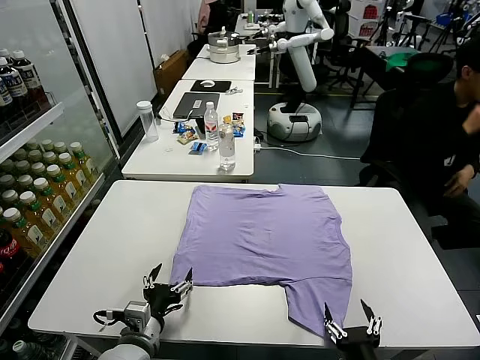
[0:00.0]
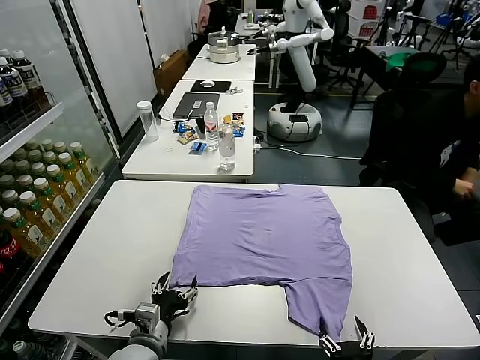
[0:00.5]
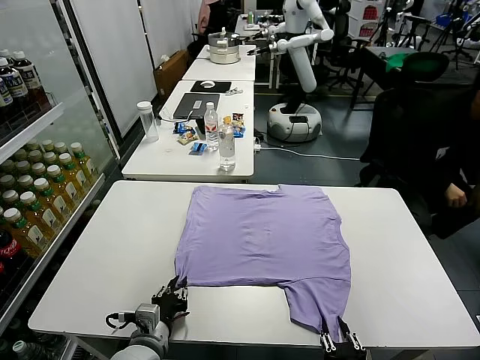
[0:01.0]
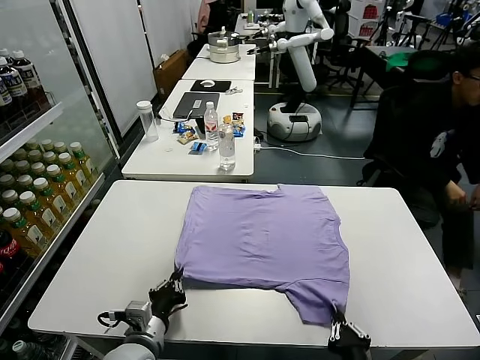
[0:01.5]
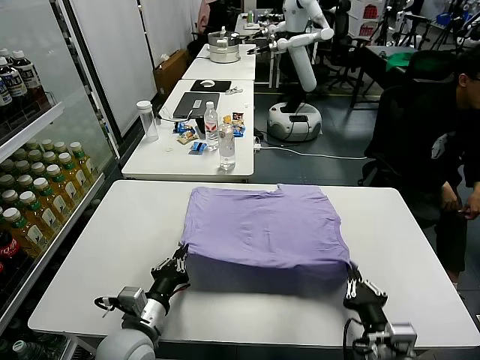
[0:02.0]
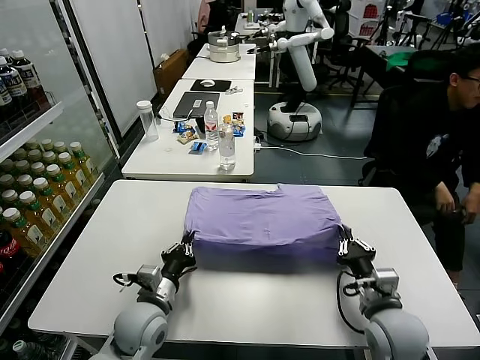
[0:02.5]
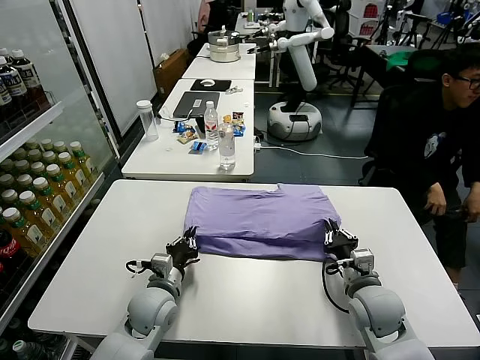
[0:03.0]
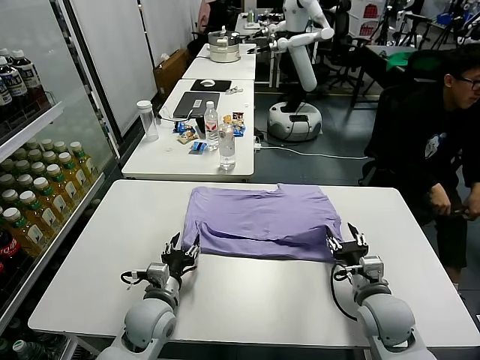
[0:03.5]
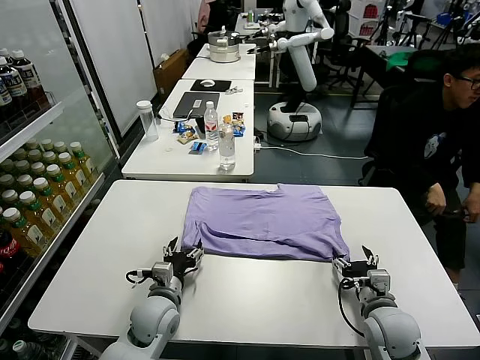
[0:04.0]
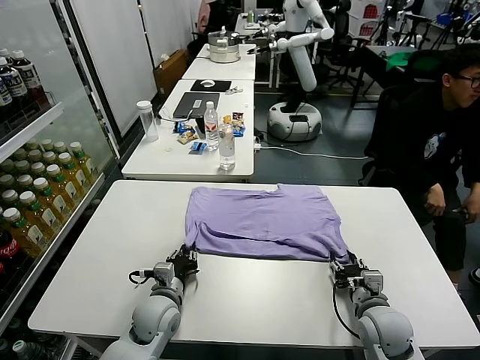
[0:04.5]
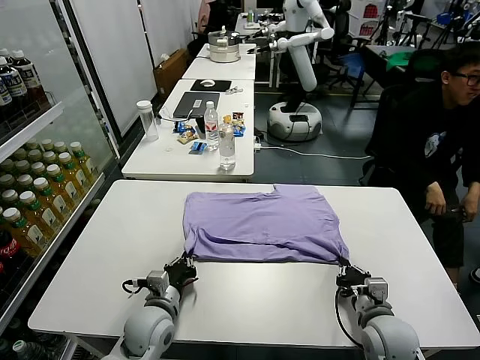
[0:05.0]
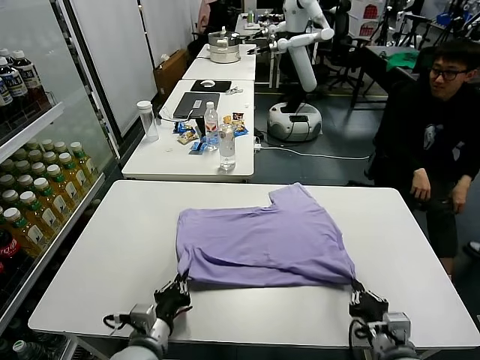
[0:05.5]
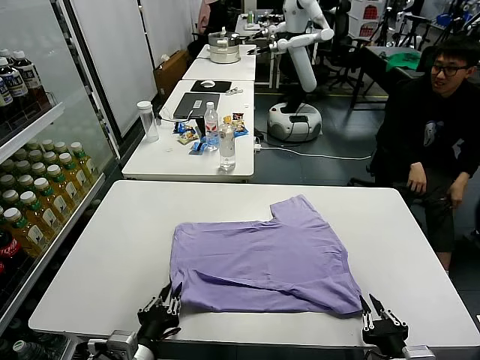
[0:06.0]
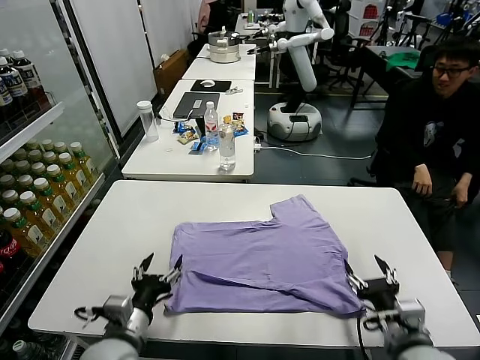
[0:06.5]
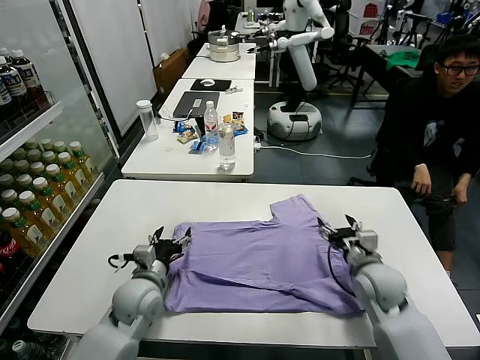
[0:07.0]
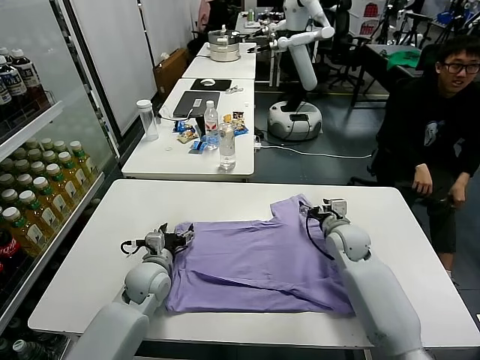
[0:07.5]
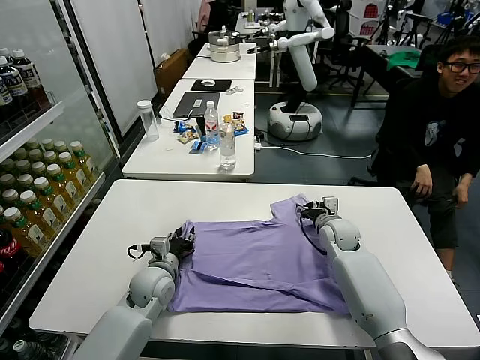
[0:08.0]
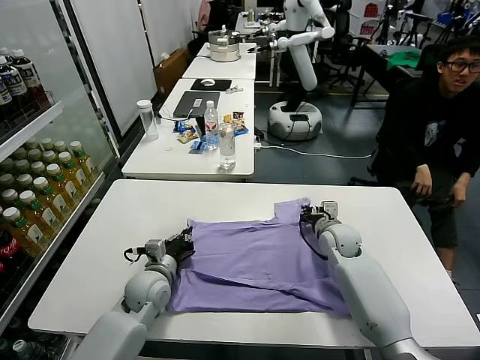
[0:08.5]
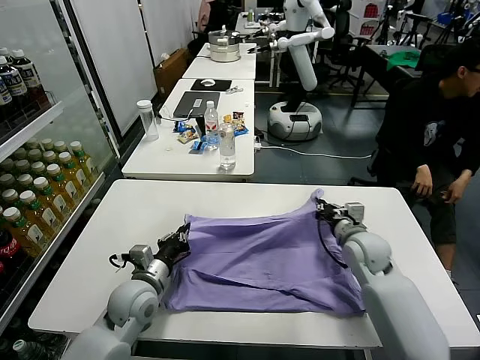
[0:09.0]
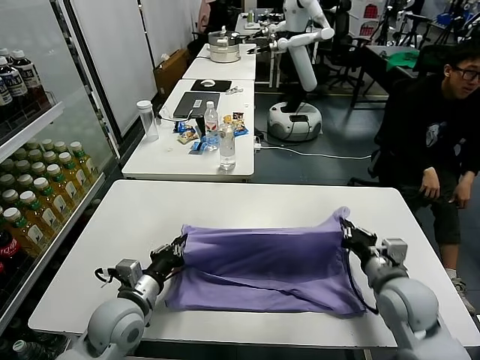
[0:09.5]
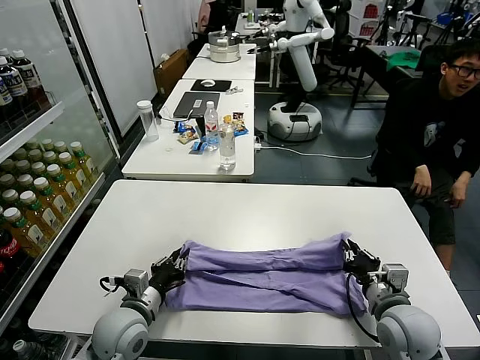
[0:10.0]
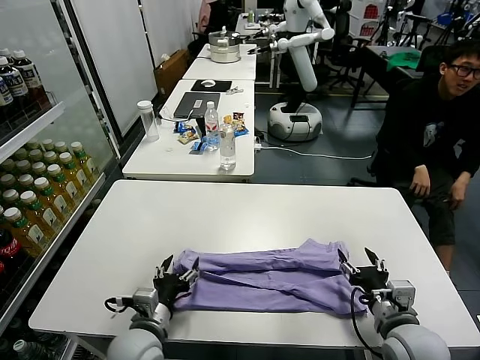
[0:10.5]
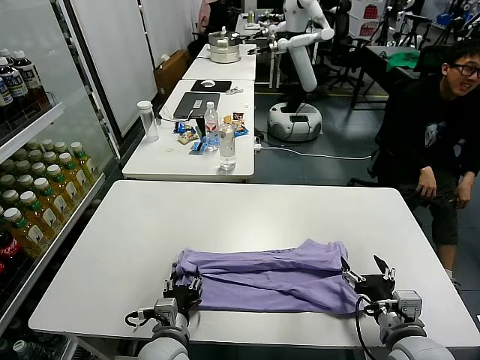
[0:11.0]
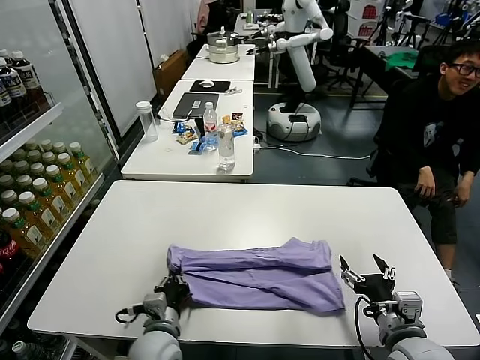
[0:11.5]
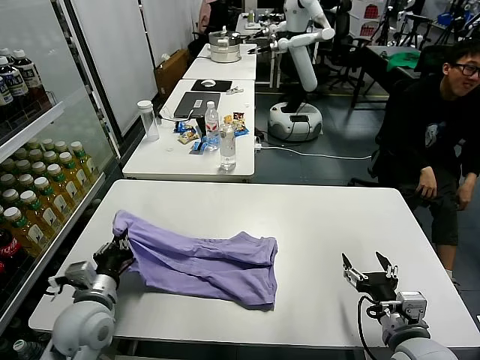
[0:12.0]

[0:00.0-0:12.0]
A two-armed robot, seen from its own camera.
Task of the whole recording: fold and organize the clothes.
Step, 0:00.0 to 0:01.0: use both grippers simultaneously to clamp the lower edge of the clothing fabric.
Step, 0:02.0 to 0:03.5: use both grippers to drag the lower edge of the fabric forward and fold it over the upper edge.
Step, 0:04.0 to 0:06.0: Drag the clothes downward with both gripper.
Step, 0:06.5 to 0:08.0: use both grippers simultaneously to clamp the upper edge of the clothing fabric.
Step, 0:08.5 to 0:10.0: use both grippers to drag the upper edge of the fabric backward and fold it over the lower edge.
Step, 0:11.0 to 0:11.5: use the left gripper to clamp the left edge of the fabric.
0:02.0 to 0:04.0: The two grippers go about 10 cm forward and downward. The right gripper opens up. Meanwhile the left gripper opens.
0:04.0 to 0:06.0: Both grippers move backward and upward, some 20 cm. The right gripper closes up; the left gripper closes.
0:06.0 to 0:08.0: The right gripper goes about 40 cm forward, and opens and closes again. The left gripper is displaced forward by about 25 cm, and opens and closes again.
0:08.0 to 0:10.0: The left gripper moves backward, some 10 cm; the right gripper heads backward, covering approximately 25 cm.
0:10.0 to 0:12.0: The right gripper shifts roughly 5 cm backward, and opens its fingers. Meanwhile the left gripper shifts roughly 5 cm to the left, and opens, then closes once more.

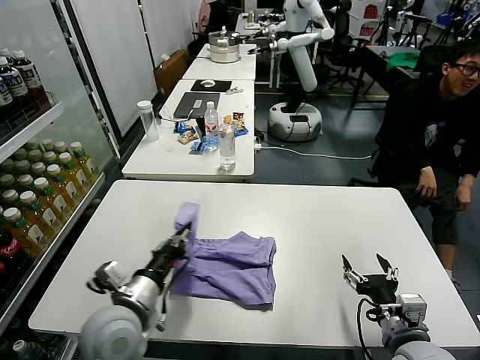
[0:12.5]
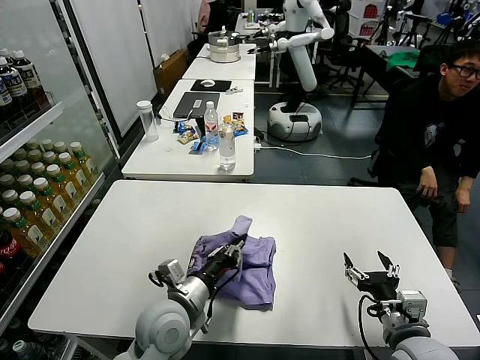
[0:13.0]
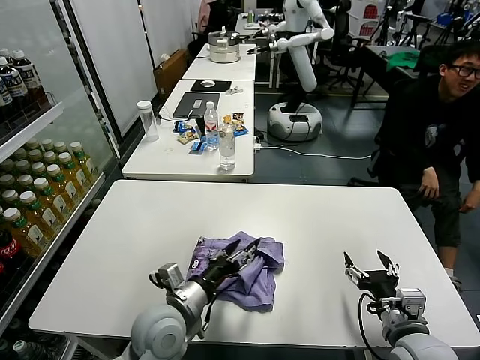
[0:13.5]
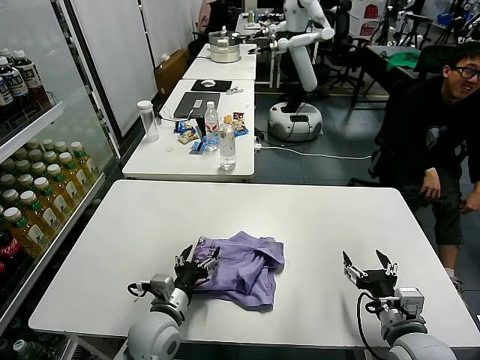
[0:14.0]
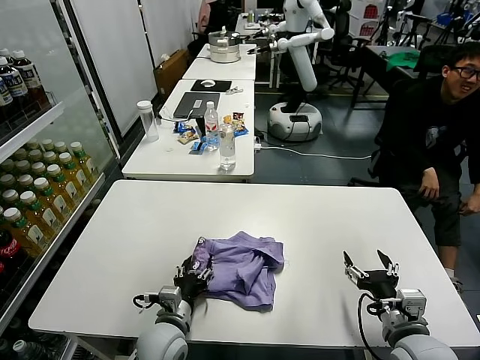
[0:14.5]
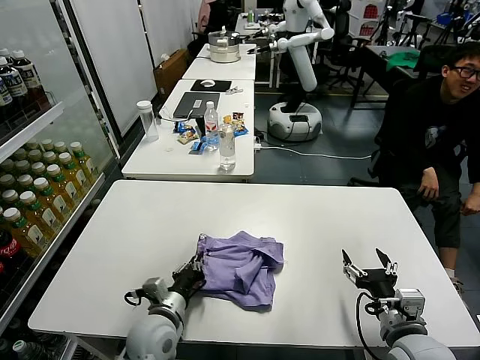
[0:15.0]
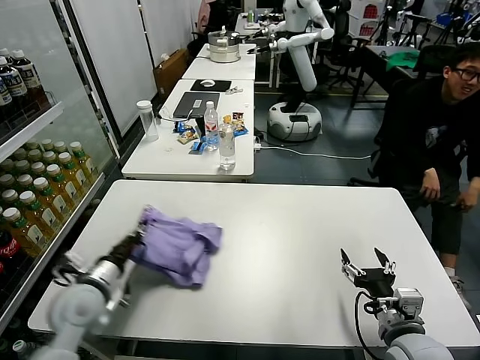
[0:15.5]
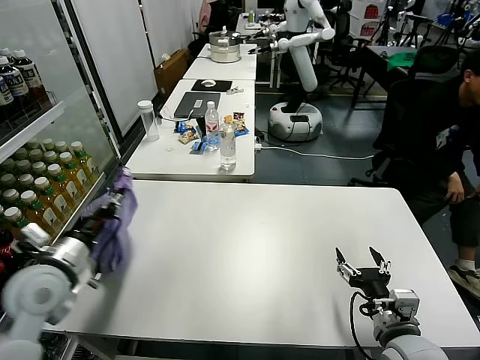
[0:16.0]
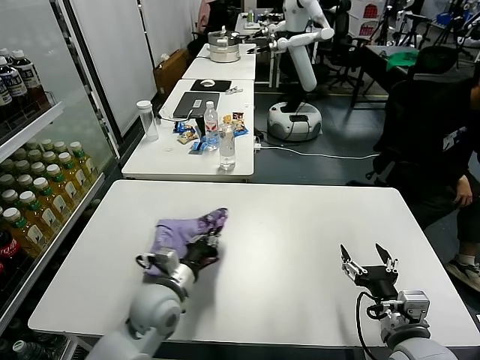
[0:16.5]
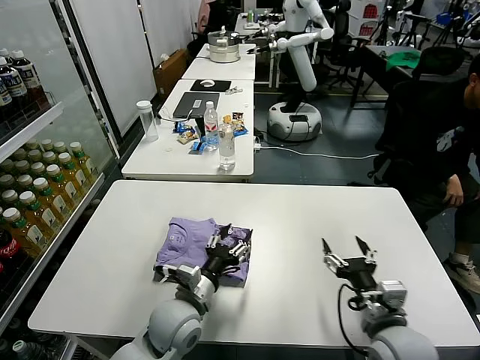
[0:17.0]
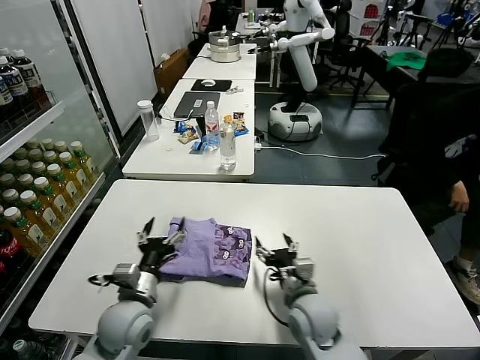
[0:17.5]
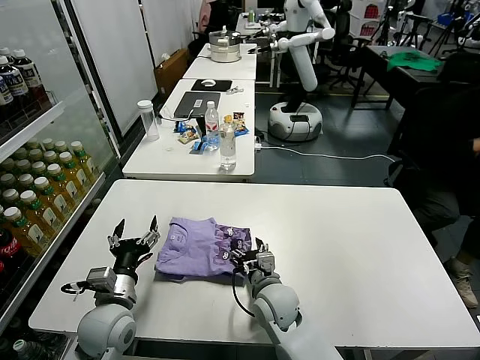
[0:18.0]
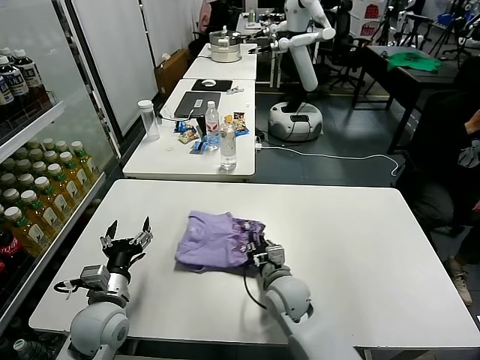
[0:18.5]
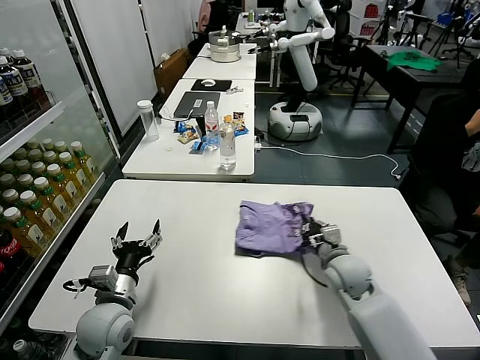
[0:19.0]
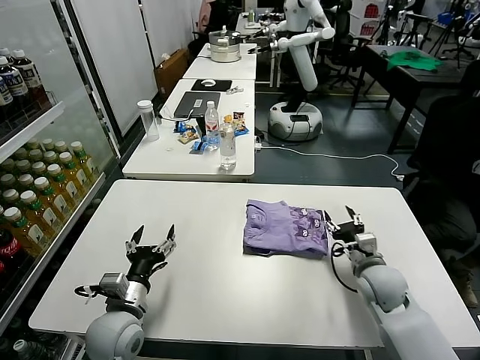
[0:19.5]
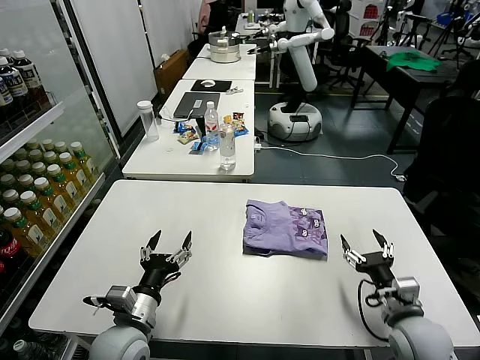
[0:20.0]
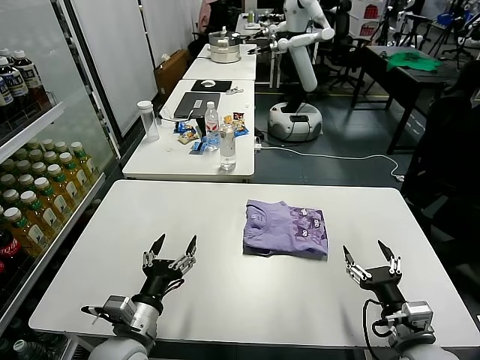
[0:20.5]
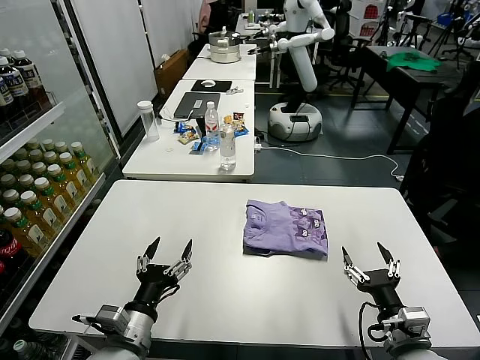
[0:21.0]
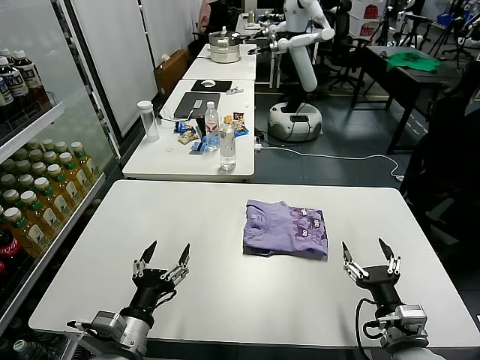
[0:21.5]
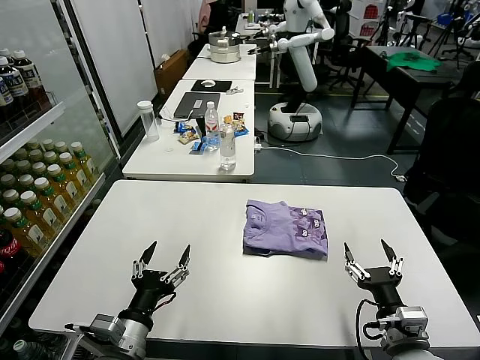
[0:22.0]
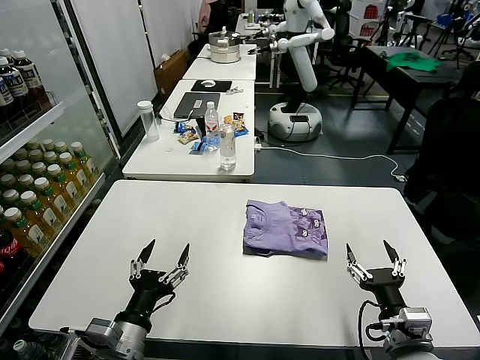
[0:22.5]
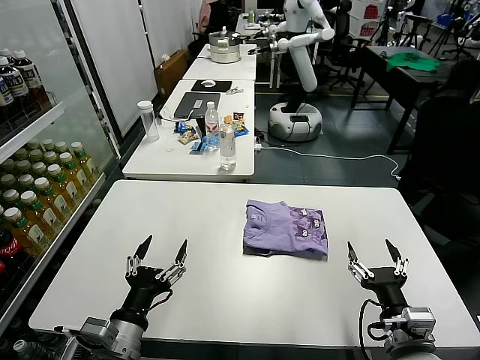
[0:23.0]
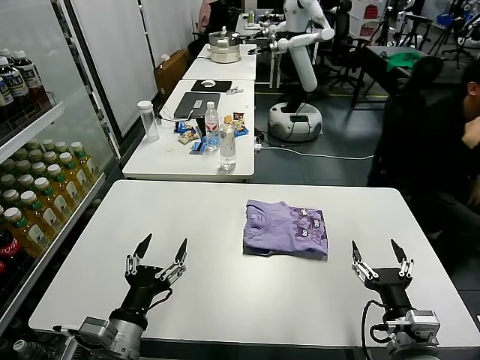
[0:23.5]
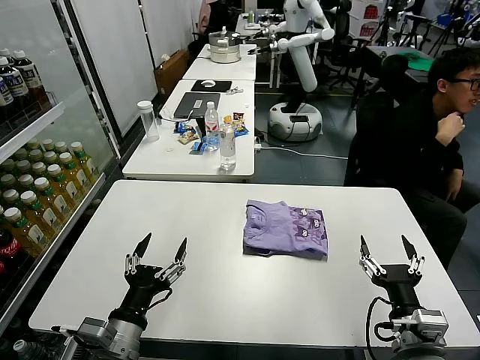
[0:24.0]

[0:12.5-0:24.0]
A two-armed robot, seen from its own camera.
Task of the whole recording: fold and organize the clothes.
Step, 0:14.0 to 0:17.0: Flip the folded clothes over with left gripper.
Step, 0:17.5 to 0:19.5: Drag the clothes to the center of the table.
0:12.5 to 0:14.5: The left gripper heads downward and to the right, covering roughly 15 cm, and opens up.
0:14.5 to 0:16.5: The left gripper moves upward and forward, some 10 cm, reaches some 20 cm to the left, then returns, and closes its fingers.
0:16.5 to 0:18.5: The left gripper moves to the left, some 10 cm, and opens its fingers, while the right gripper moves to the left, forward and downward, about 25 cm, and closes.
0:18.5 to 0:20.0: The right gripper is displaced to the right and backward by about 25 cm, and opens, while the left gripper goes roughly 5 cm to the right.
0:20.0 to 0:22.0: Both grippers move backward, approximately 5 cm.
0:22.0 to 0:24.0: There are only small adjustments of the grippers.
